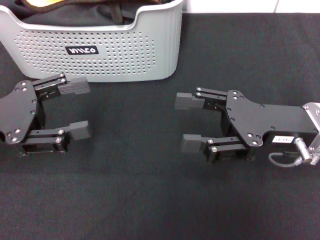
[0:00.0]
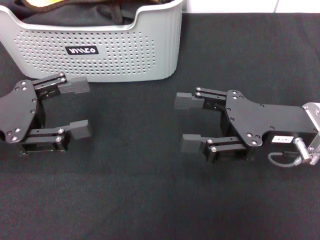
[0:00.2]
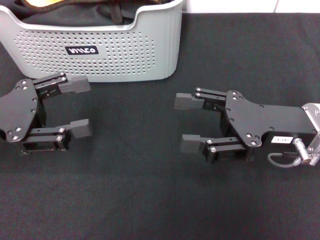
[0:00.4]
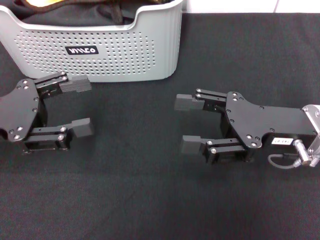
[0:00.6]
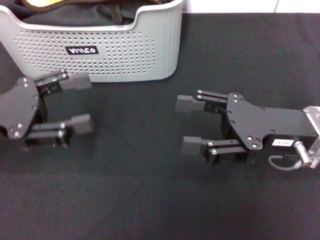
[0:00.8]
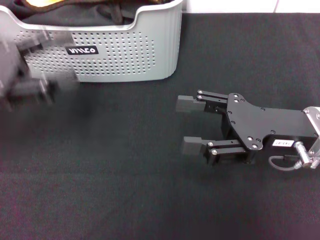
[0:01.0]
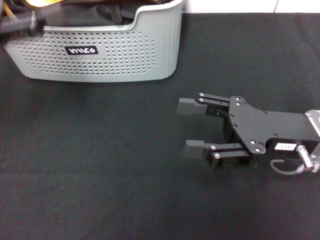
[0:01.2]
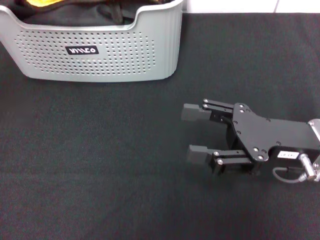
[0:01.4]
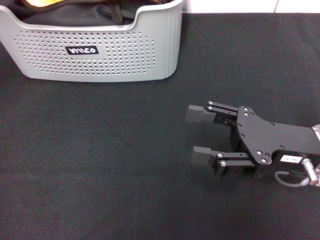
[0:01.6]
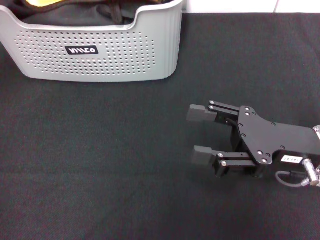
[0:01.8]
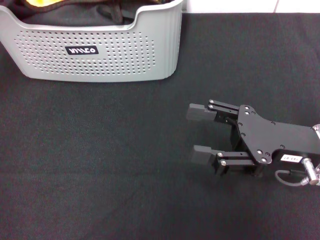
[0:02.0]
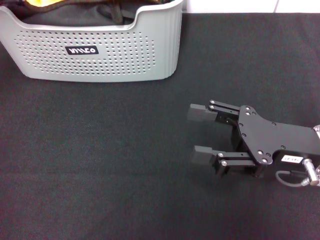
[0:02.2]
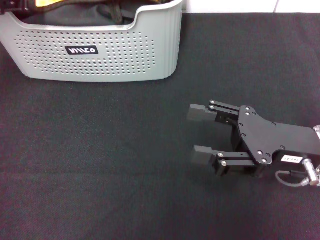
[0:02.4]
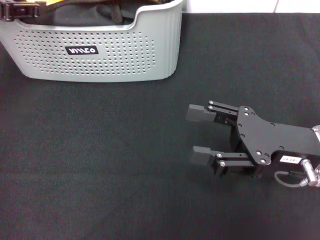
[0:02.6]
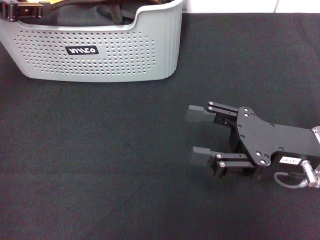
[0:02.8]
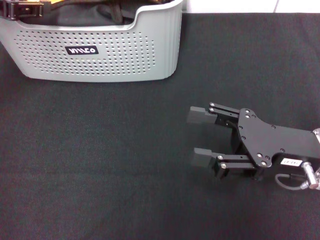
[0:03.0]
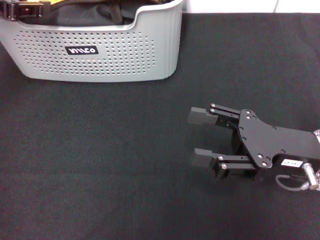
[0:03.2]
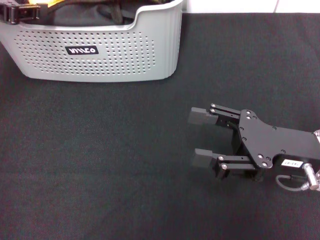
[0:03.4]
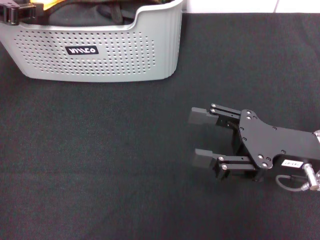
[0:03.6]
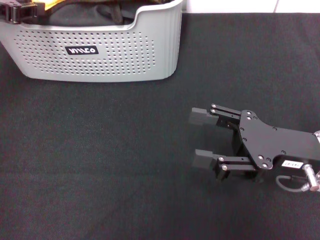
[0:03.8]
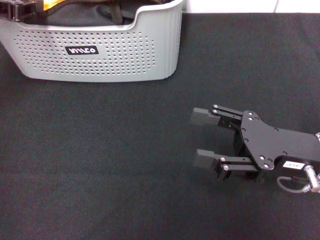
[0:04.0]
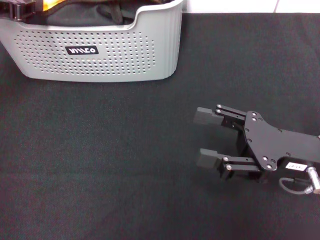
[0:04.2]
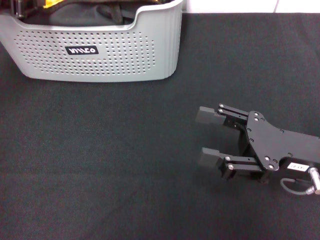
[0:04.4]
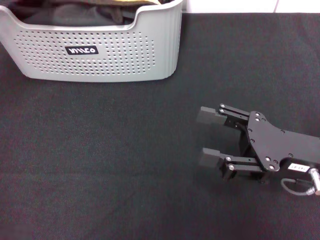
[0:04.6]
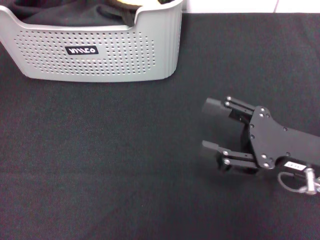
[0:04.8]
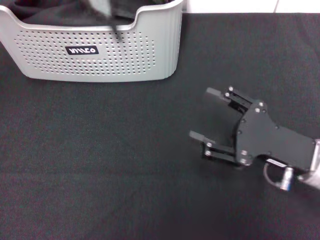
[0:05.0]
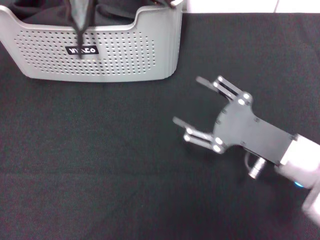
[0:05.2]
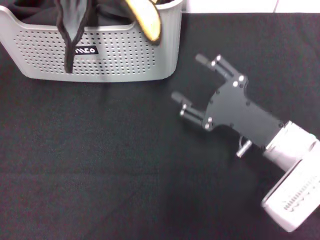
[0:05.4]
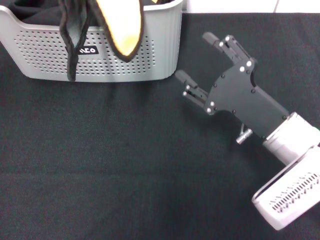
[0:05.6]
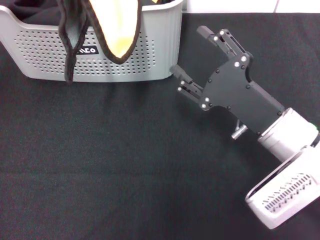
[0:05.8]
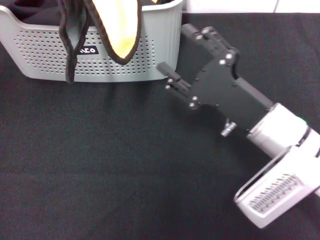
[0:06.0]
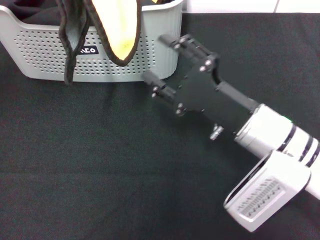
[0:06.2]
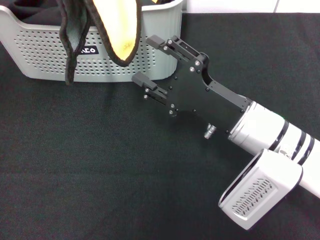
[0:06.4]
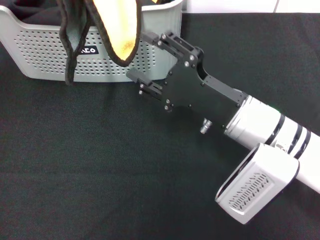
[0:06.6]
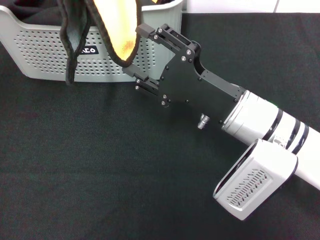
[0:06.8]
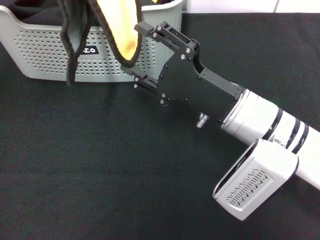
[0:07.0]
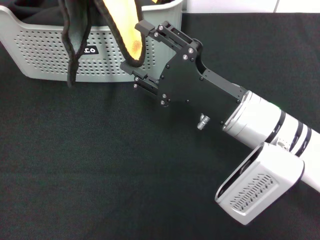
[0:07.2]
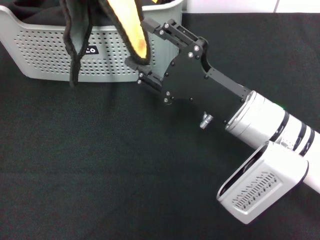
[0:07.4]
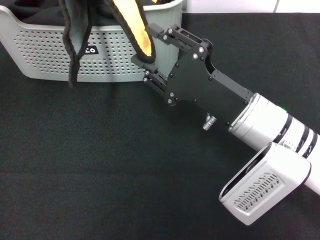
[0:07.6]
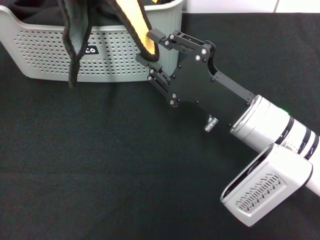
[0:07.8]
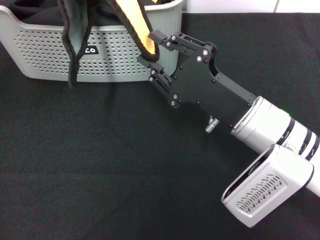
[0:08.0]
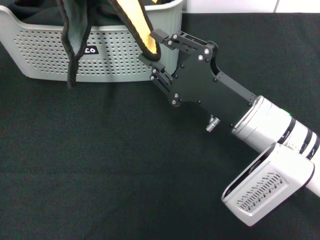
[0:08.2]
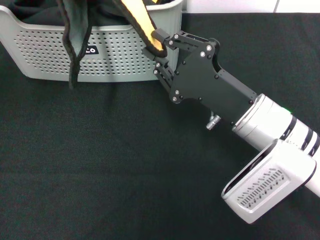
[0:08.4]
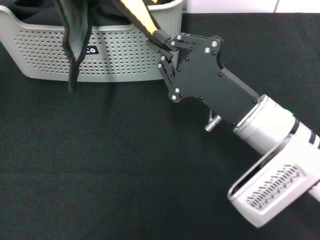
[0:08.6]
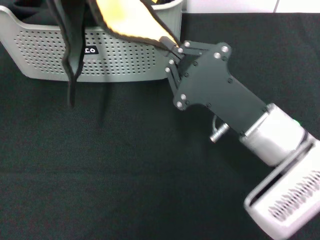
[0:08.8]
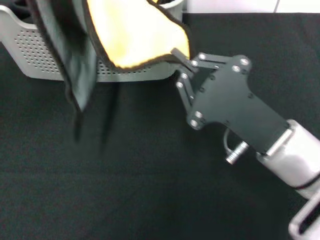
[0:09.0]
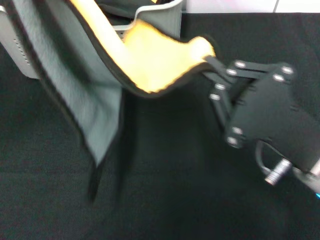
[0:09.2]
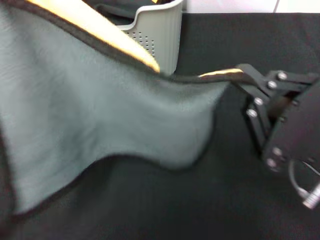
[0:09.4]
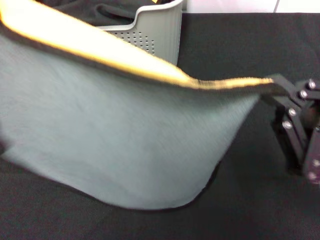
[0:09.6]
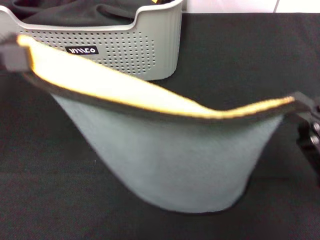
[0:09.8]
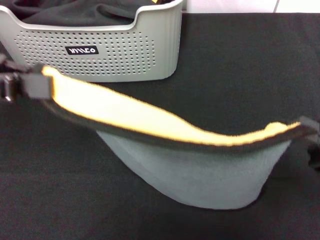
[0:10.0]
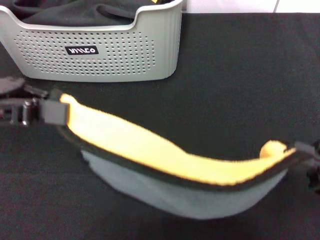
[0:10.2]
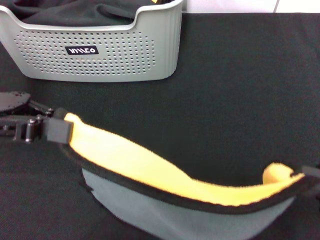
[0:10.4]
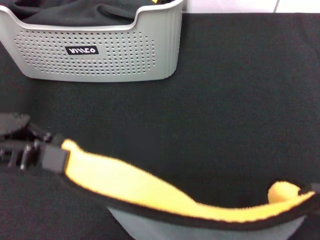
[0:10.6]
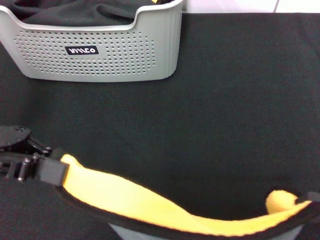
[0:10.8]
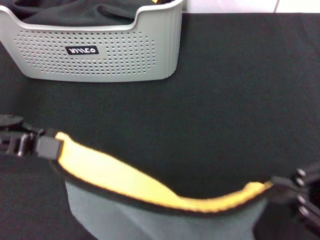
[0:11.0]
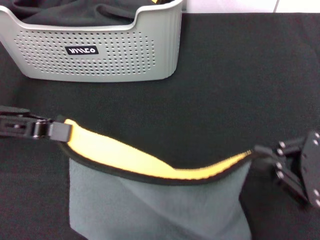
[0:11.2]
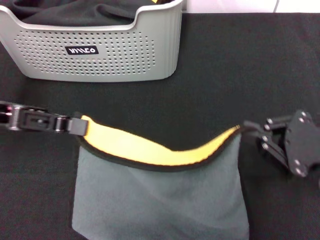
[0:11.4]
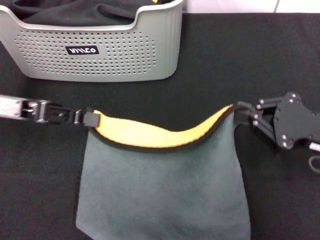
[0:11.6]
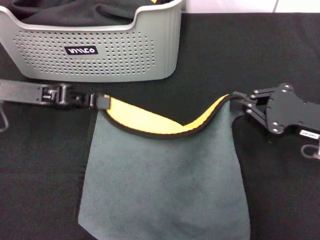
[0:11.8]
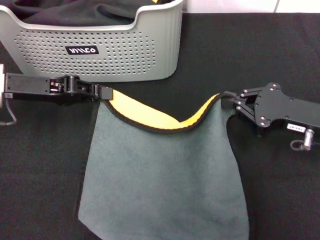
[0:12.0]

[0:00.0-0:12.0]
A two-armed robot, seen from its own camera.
Task of the whole recording: pick up the towel from the storage box and lay it flat on the black tablecloth.
Step, 0:00.0 to 0:04.4: Pick up a towel with the left gripper.
Step, 0:04.8 to 0:08.6: Spread the towel flat with the left gripper.
0:00.0 to 0:01.6: The left gripper goes approximately 15 cm upward and forward.
0:01.6 to 0:03.0: There are only small adjustments of the grippers.
0:03.0 to 0:04.4: The left gripper closes.
0:04.4 to 0:06.0: The right gripper travels to the left by approximately 10 cm. The left gripper is displaced upward and backward by about 10 cm.
0:07.6 to 0:09.0: The right gripper moves approximately 5 cm, and closes up.
0:09.0 to 0:10.4: The right gripper shifts some 15 cm to the right, while the left gripper heads downward, covering roughly 5 cm.
0:10.4 to 0:12.0: The left gripper moves downward and forward, approximately 10 cm; the right gripper is displaced forward and downward by approximately 15 cm.

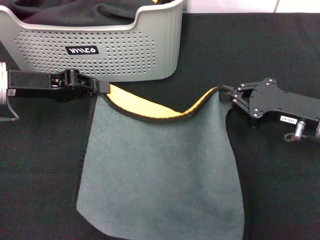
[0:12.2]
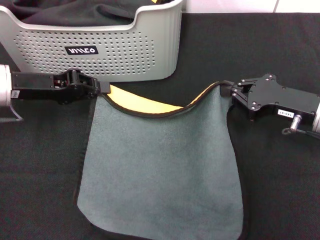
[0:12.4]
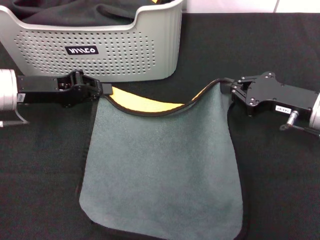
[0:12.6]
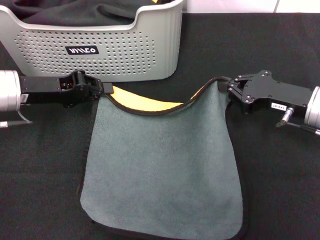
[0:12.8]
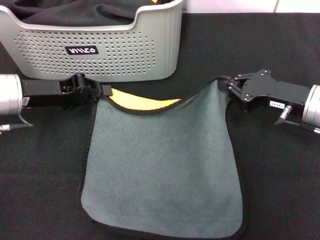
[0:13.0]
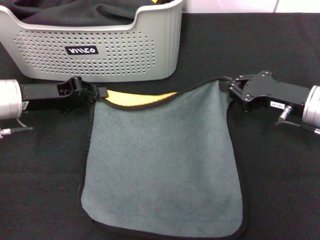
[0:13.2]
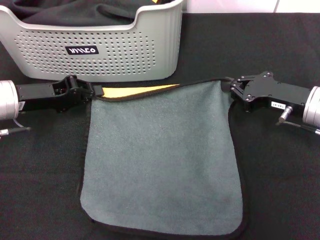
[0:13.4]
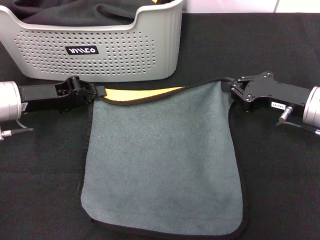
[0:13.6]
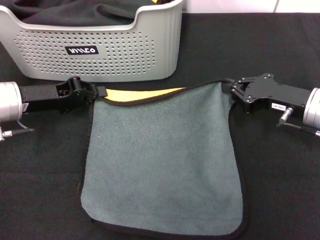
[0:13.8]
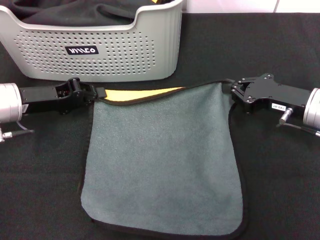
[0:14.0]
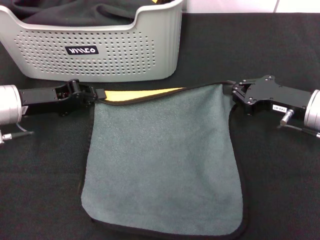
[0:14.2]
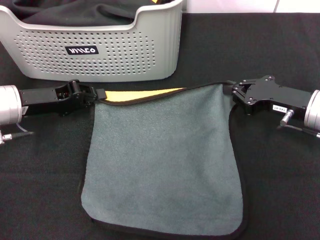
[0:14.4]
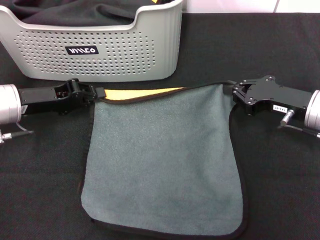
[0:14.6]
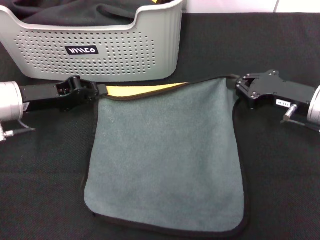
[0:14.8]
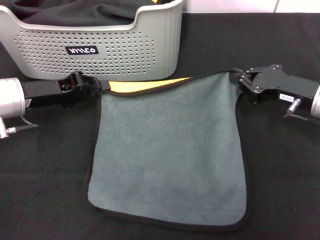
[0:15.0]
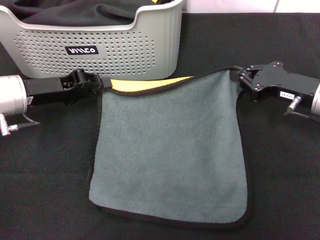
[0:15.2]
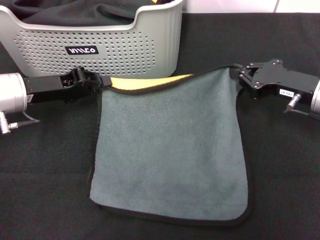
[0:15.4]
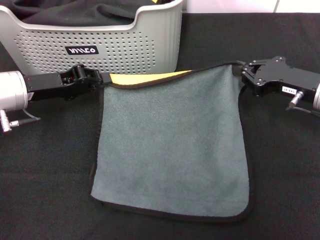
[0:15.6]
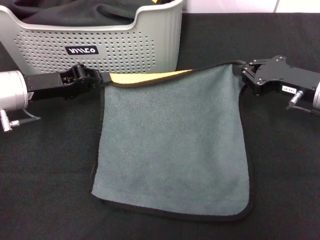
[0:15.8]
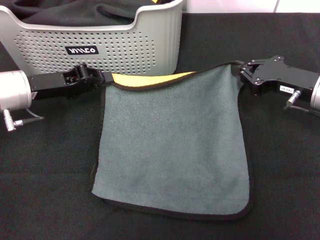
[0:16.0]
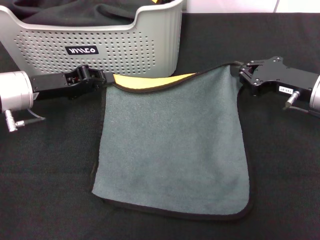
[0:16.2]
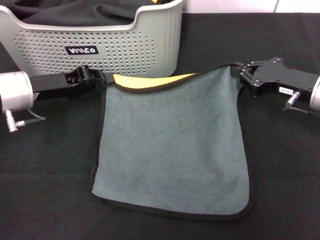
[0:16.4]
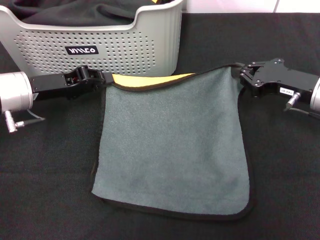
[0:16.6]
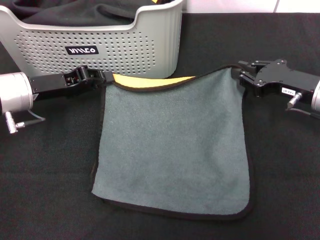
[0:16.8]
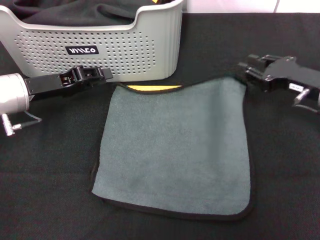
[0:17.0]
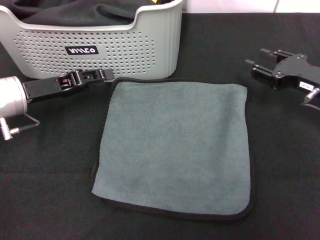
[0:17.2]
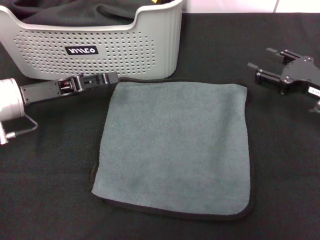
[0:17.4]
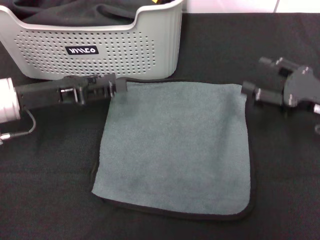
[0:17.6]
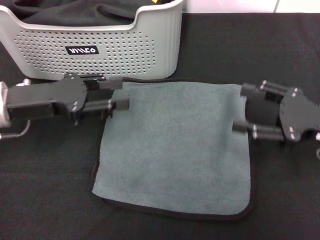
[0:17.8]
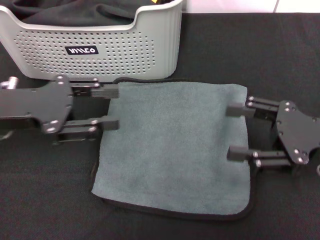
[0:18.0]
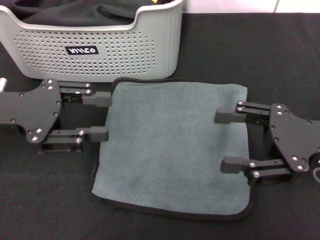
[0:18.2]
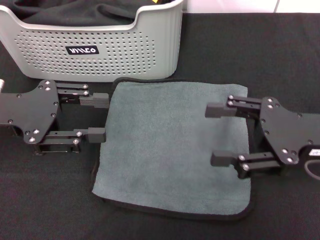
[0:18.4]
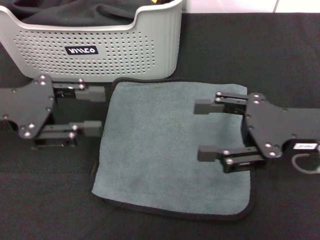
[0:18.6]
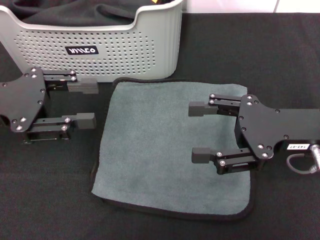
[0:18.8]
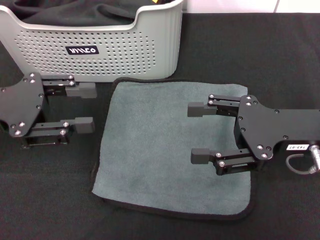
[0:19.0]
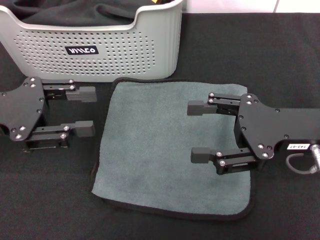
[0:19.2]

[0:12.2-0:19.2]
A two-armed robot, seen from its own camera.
Task of the whole recording: pick up the towel from the storage box and lay it flat on the black tablecloth.
Step, 0:12.2 to 0:17.0: Spread the towel flat with the right gripper.
0:12.2 to 0:13.6: The grippers make only small movements.
0:13.6 to 0:15.0: Neither gripper changes place.
0:15.0 to 0:16.4: Neither gripper changes place.
0:16.4 to 0:17.8: The right gripper is displaced backward by approximately 10 cm, and opens up. Meanwhile the left gripper shifts by about 5 cm, and opens up.
0:17.8 to 0:19.2: The left gripper moves approximately 5 cm; the right gripper shifts some 5 cm to the left.

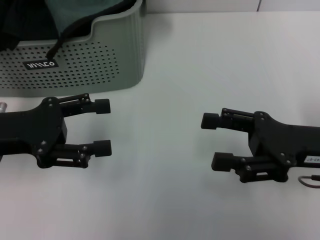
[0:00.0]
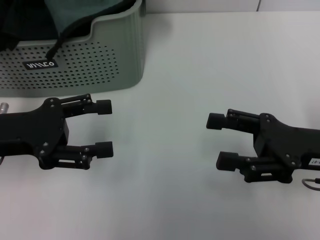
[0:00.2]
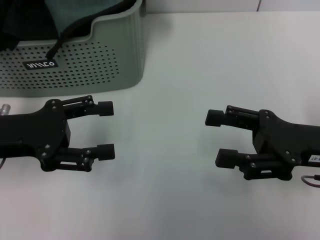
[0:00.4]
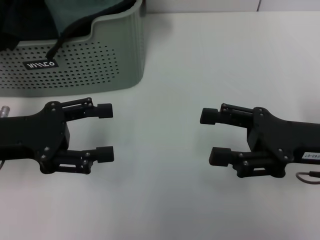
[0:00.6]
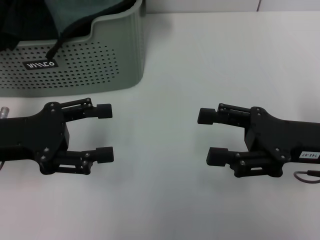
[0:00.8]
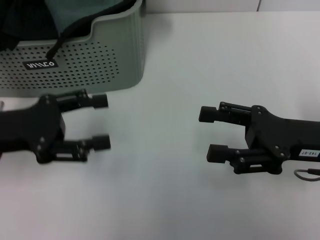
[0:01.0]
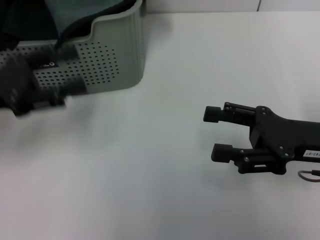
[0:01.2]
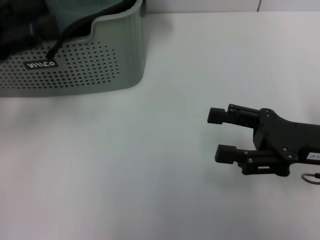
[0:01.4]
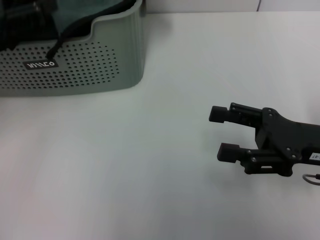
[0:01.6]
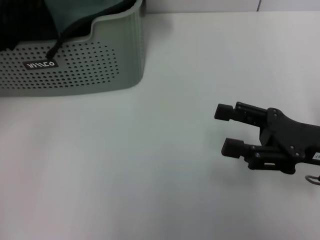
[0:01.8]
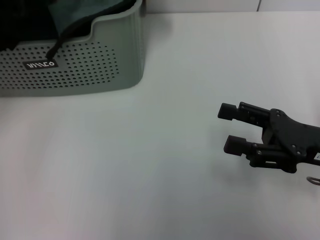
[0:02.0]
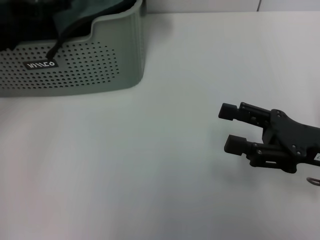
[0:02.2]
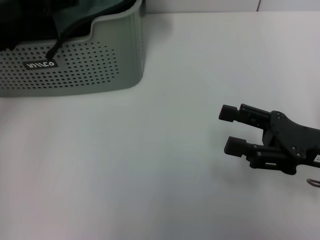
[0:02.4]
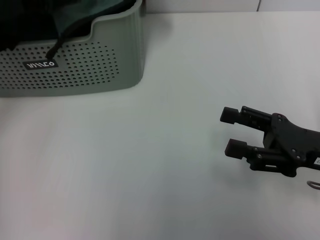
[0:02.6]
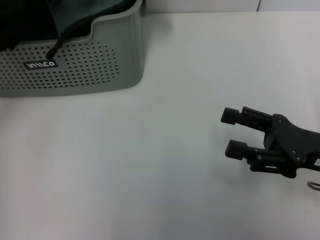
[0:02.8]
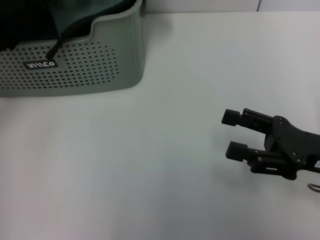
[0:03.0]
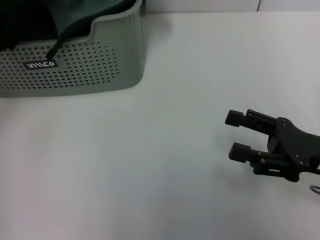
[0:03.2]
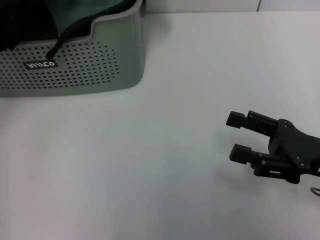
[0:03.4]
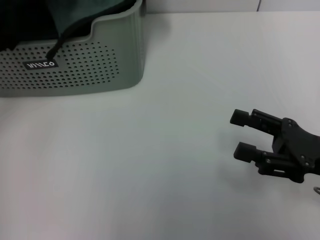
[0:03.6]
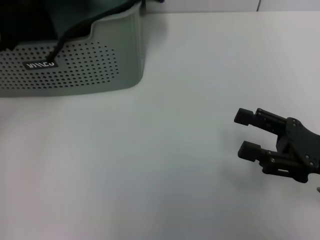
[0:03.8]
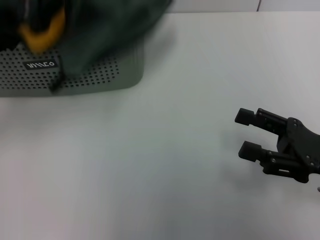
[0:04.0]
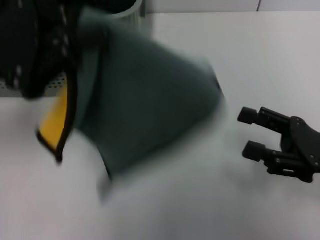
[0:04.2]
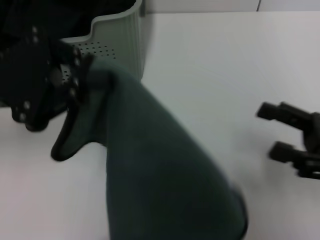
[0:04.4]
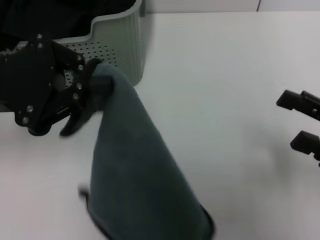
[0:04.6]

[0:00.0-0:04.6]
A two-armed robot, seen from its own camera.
Task of the whole recording: pick up the towel from the storage box and lay it flat on the table.
Step, 0:00.0 to 0:03.2: Pick up a towel with the left gripper.
0:00.0 to 0:01.6: The left gripper travels upward by some 5 cm.
0:03.0 to 0:04.6: The right gripper changes place by roughly 5 cm. The left gripper travels backward by roughly 10 cm, and closes.
